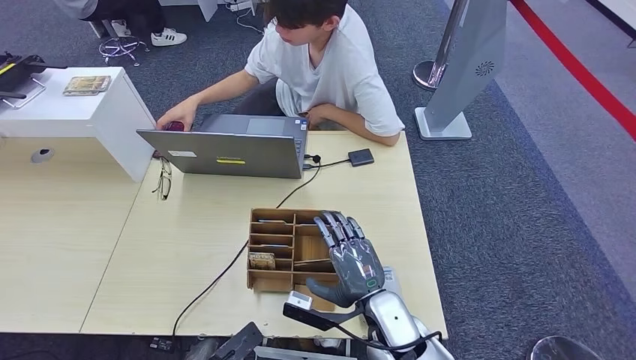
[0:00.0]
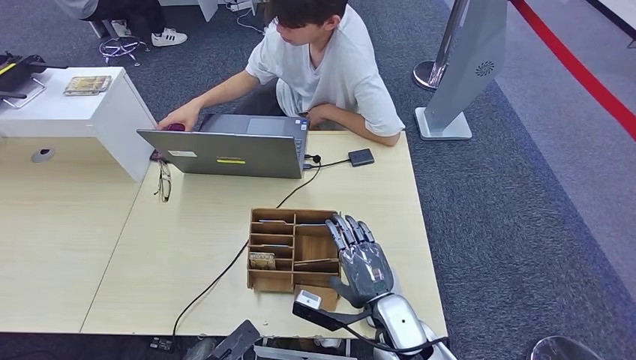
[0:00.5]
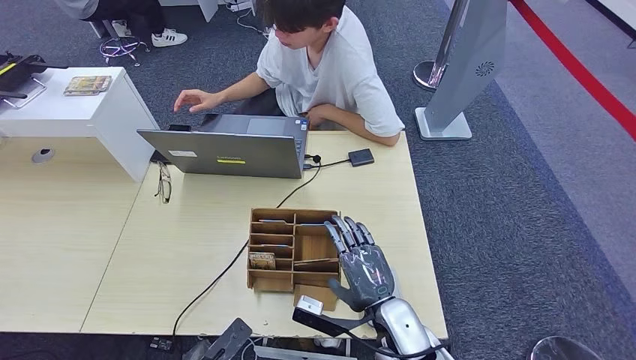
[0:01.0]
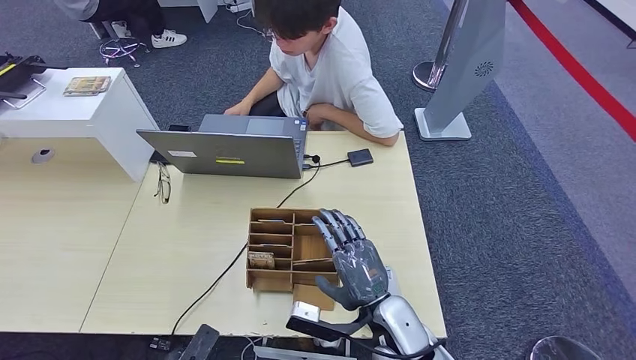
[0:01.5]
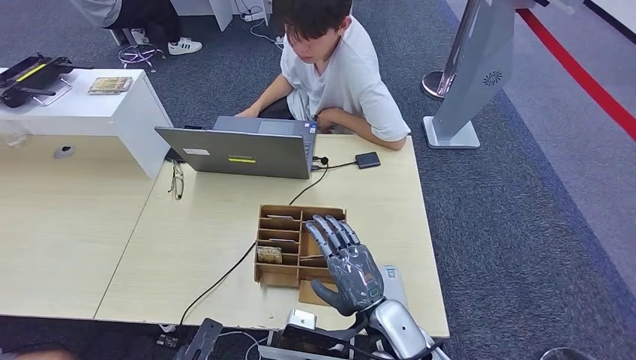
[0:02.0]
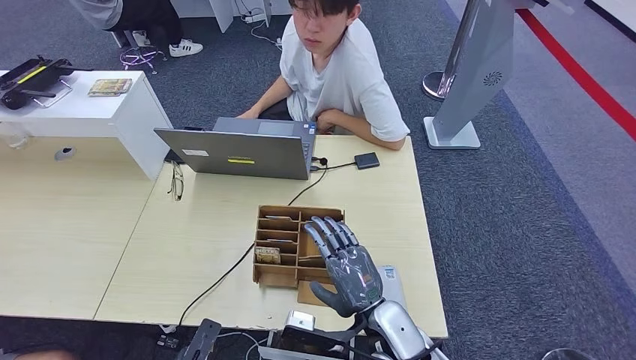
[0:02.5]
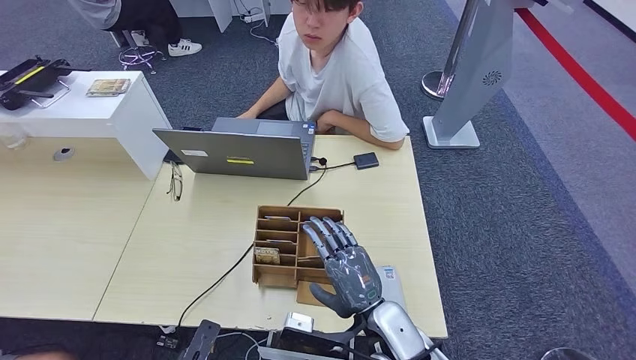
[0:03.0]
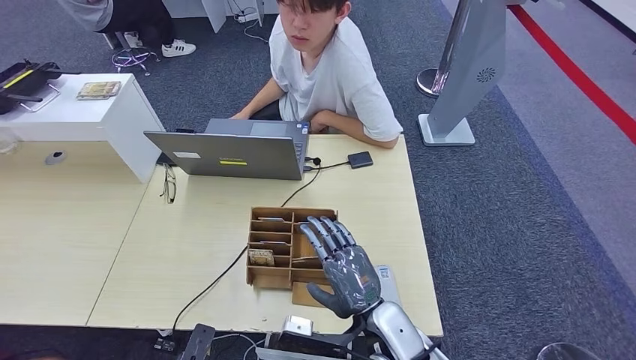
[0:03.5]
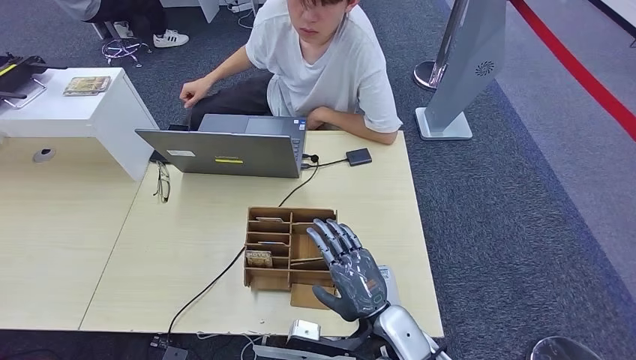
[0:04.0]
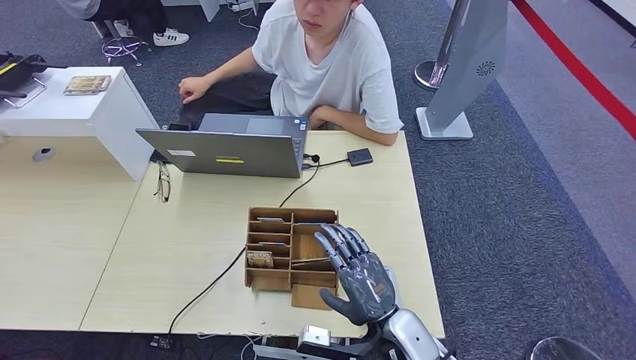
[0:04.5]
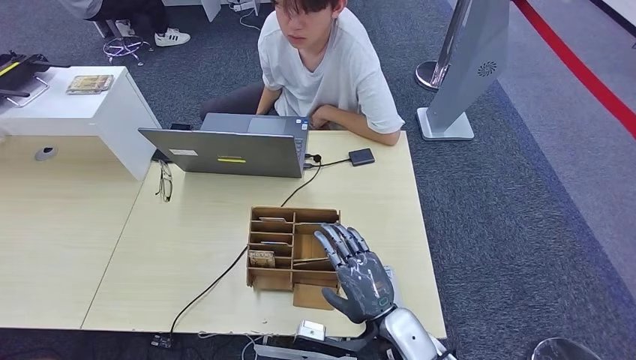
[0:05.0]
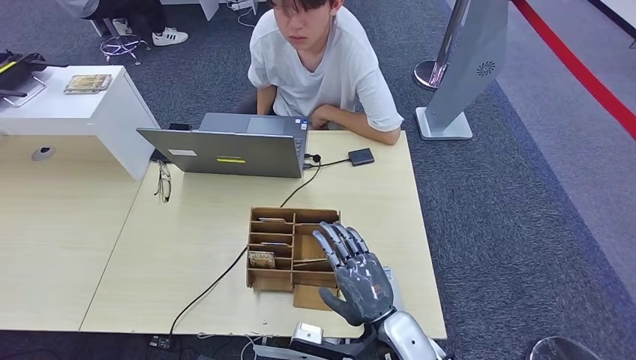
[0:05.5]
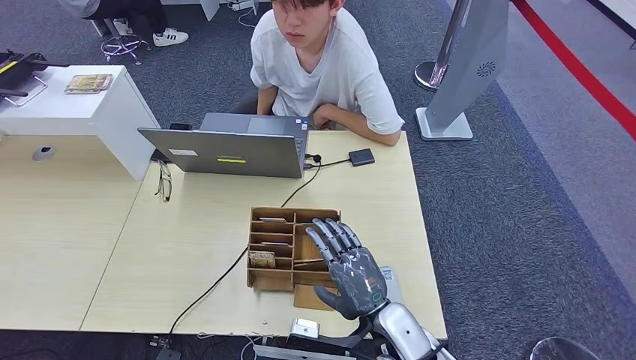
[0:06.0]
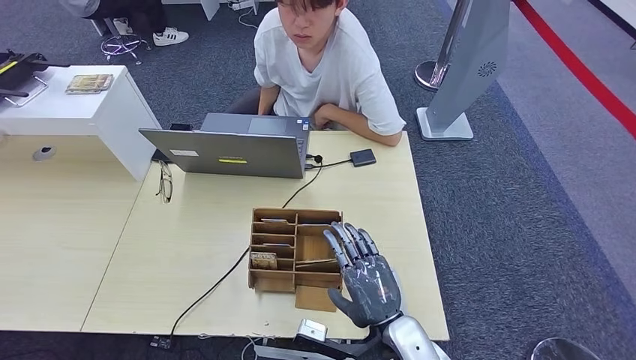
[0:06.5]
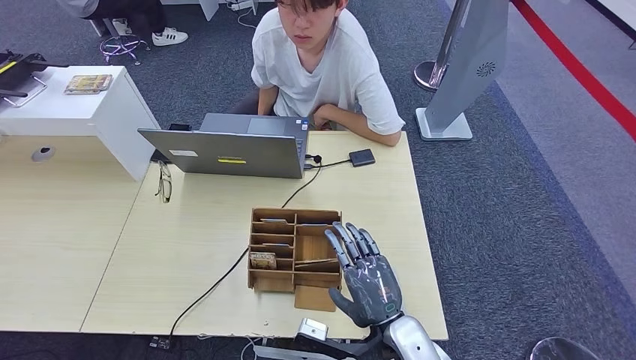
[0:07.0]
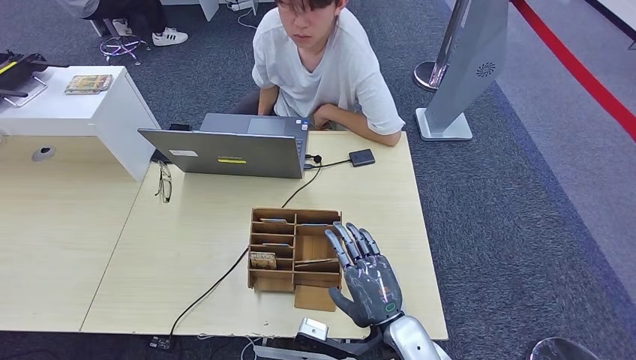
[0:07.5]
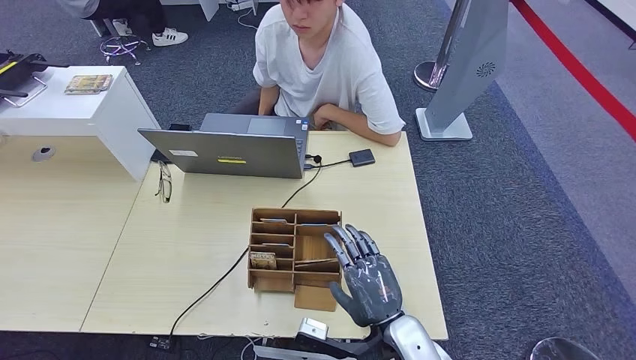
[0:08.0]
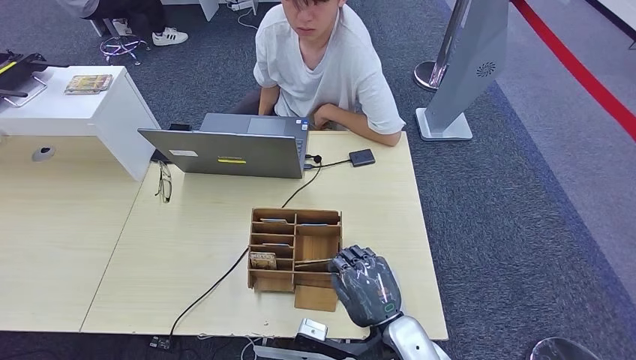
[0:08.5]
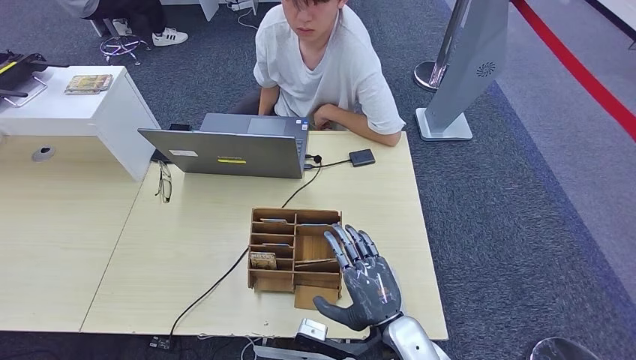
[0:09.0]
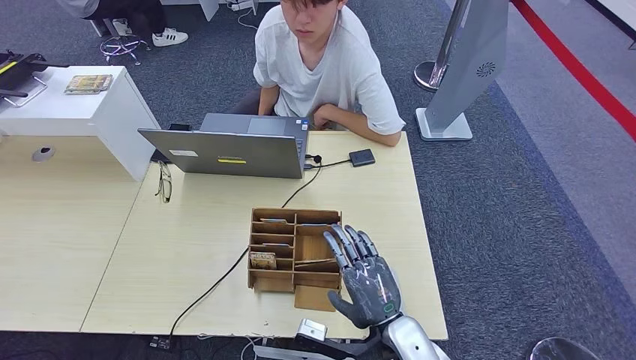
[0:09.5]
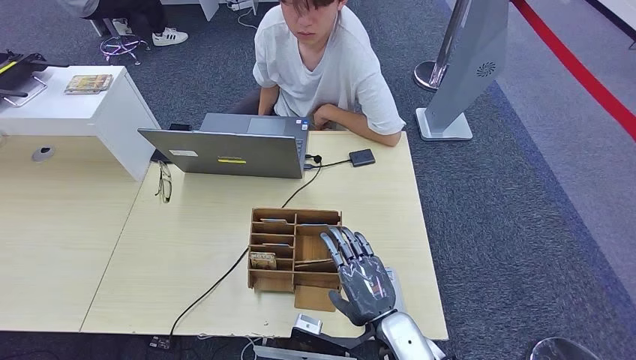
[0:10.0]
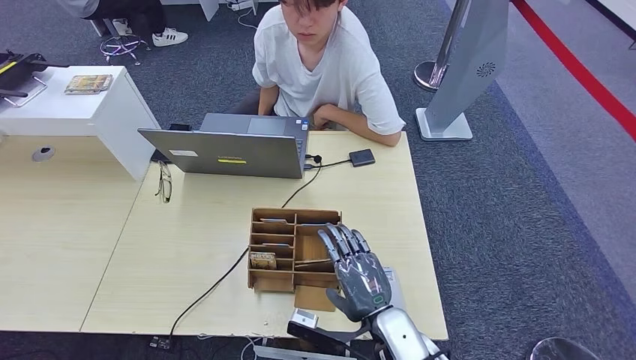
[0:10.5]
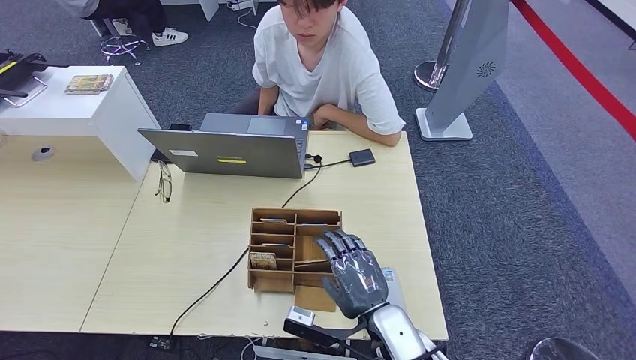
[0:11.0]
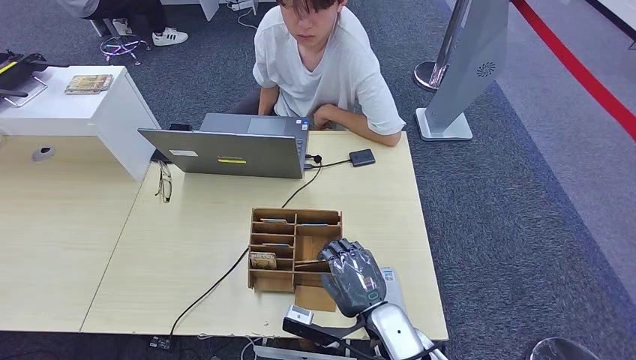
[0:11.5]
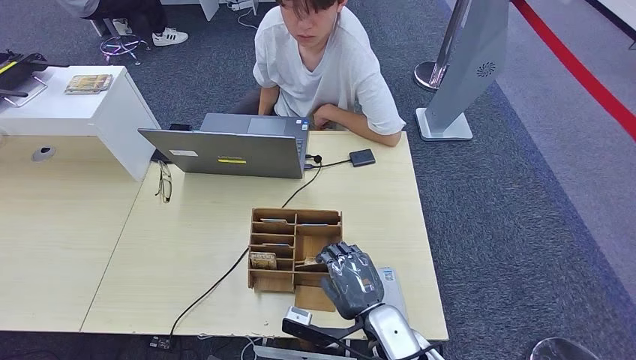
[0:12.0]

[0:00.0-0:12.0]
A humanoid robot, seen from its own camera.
0:04.0 to 0:06.0: The left hand moves left and right over some 10 cm, changing direction 2 times.
0:06.0 to 0:08.0: The left hand is displaced to the right by about 10 cm.
0:08.0 to 0:12.0: The hands move only a little.

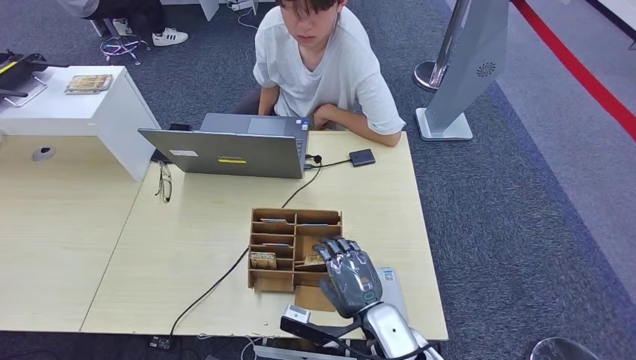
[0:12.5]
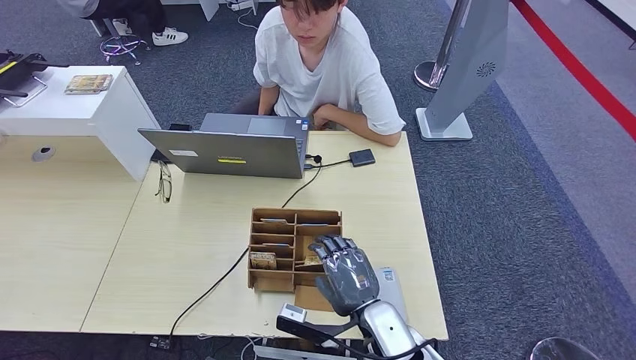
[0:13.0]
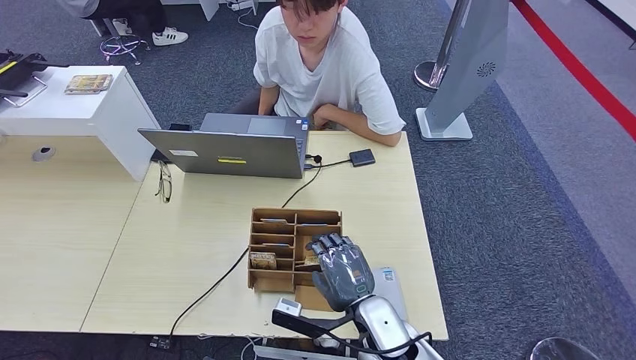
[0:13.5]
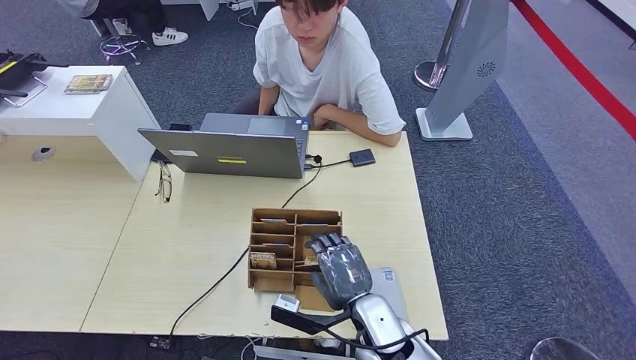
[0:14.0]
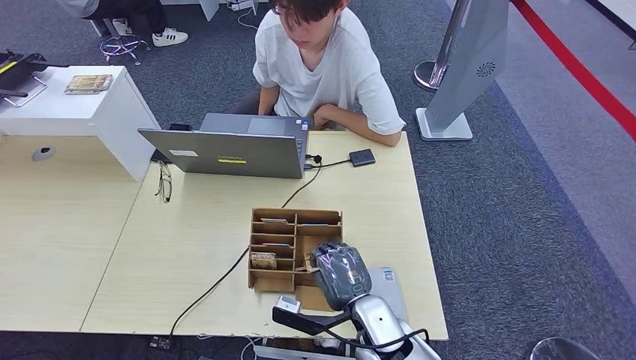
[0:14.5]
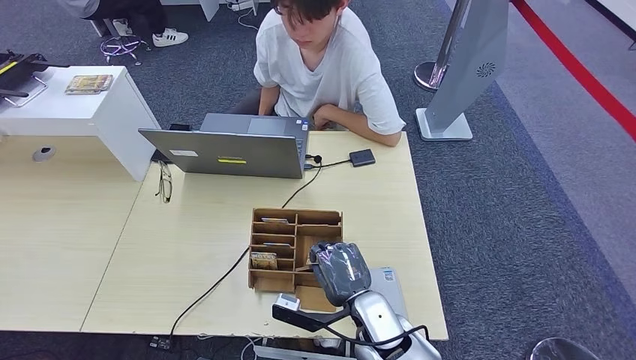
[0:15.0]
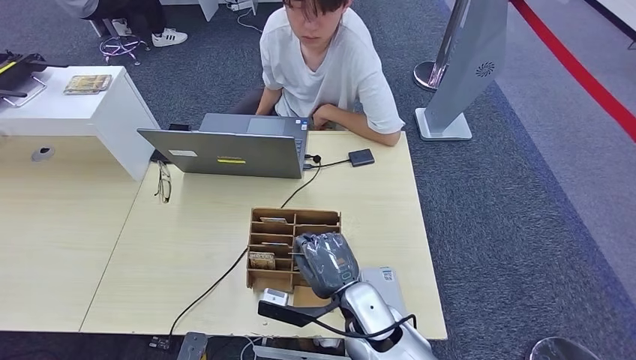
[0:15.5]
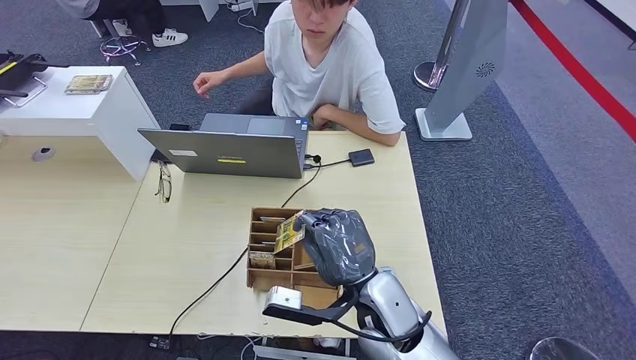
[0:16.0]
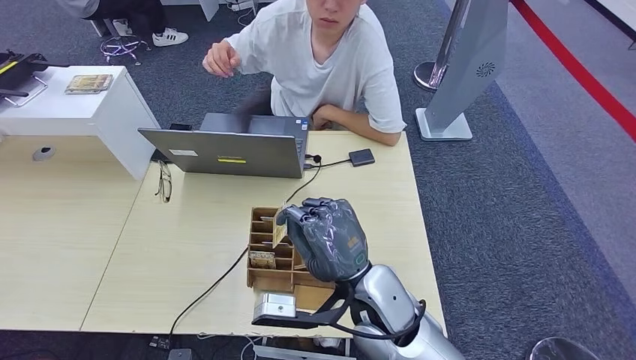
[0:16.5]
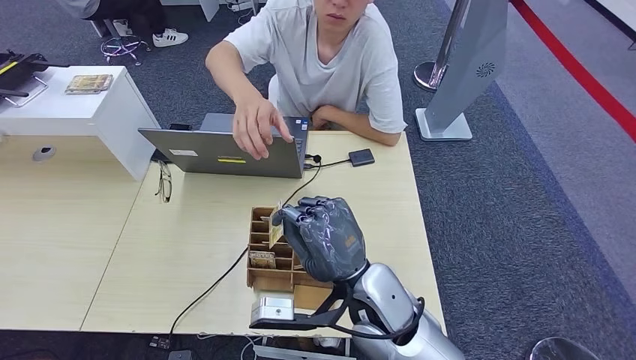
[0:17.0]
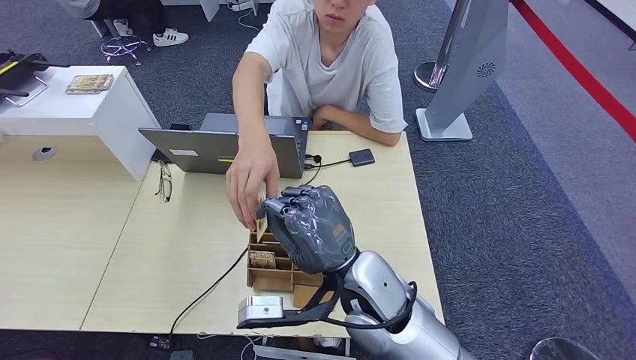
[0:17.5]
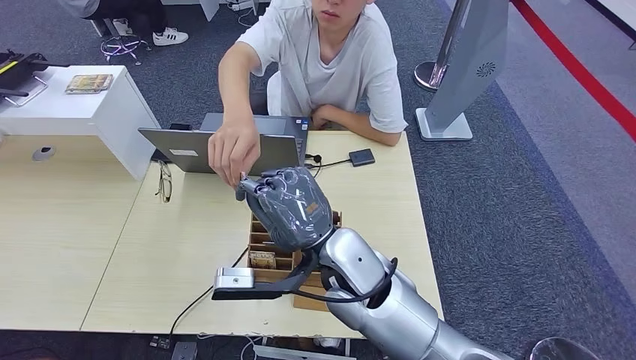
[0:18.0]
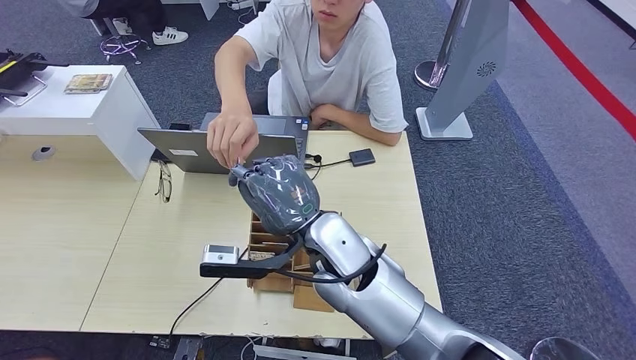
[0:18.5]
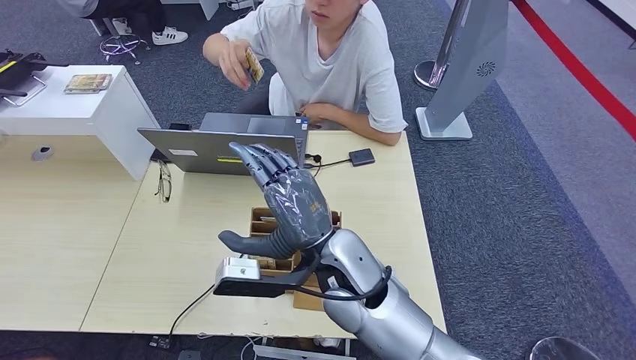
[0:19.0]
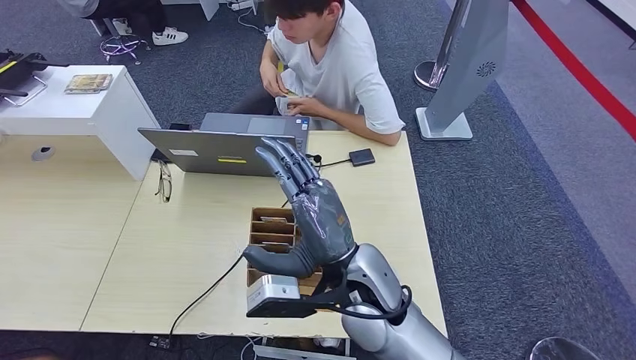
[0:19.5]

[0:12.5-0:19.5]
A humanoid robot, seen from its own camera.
Step, 0:12.5 to 0:16.5: Pick up the room key from the key card box.
Step, 0:17.0 to 0:19.5: Hand the room key to the person.
0:12.5 to 0:14.5: The hands make only small movements.
0:14.5 to 0:16.0: The right hand heads upward, covering approximately 10 cm.
0:16.0 to 0:17.5: The right hand is displaced upward by about 5 cm.
